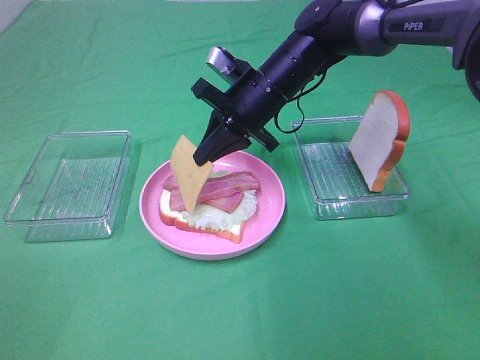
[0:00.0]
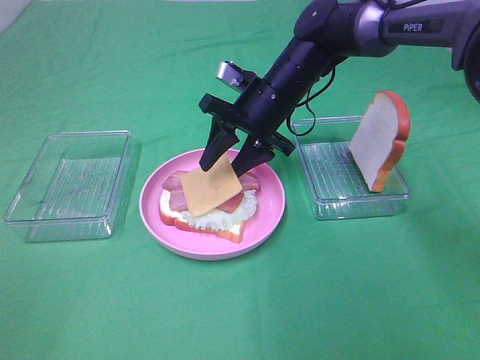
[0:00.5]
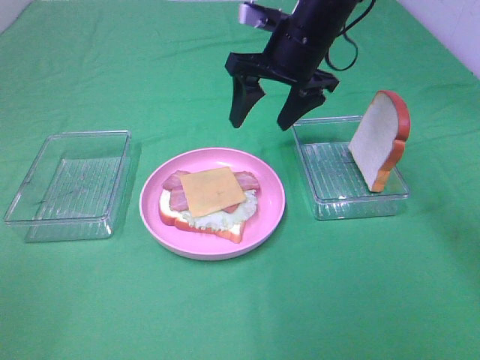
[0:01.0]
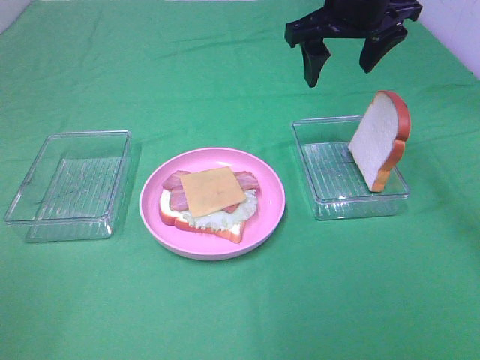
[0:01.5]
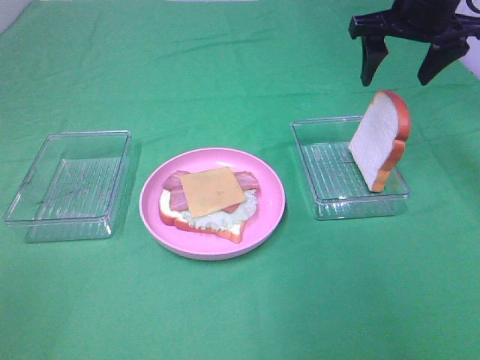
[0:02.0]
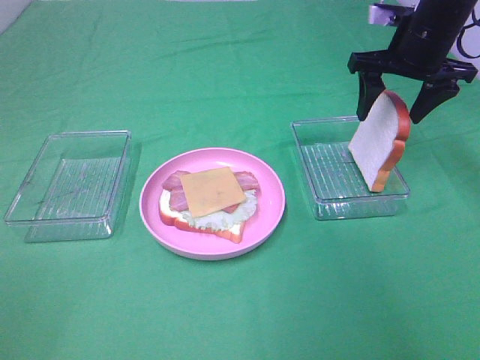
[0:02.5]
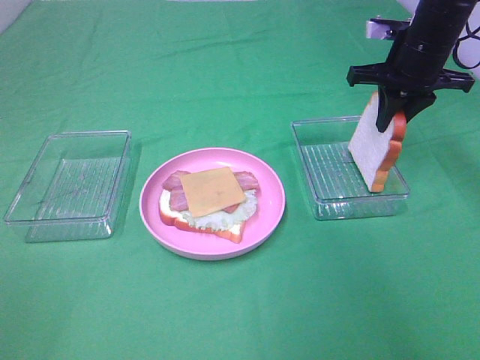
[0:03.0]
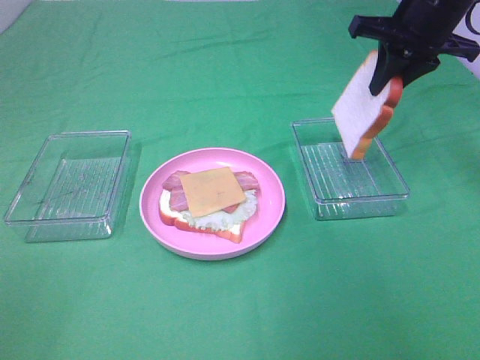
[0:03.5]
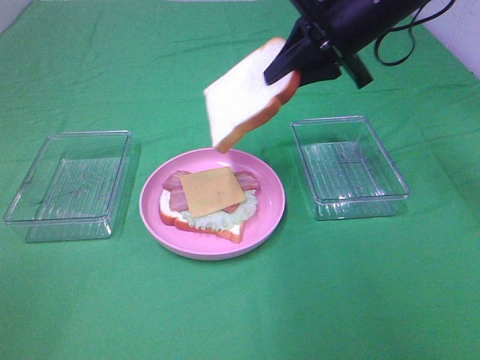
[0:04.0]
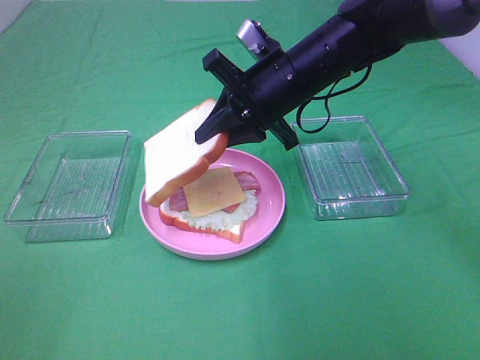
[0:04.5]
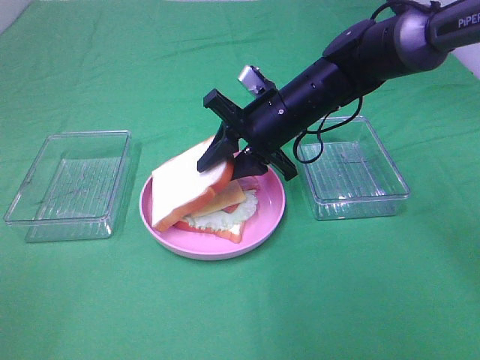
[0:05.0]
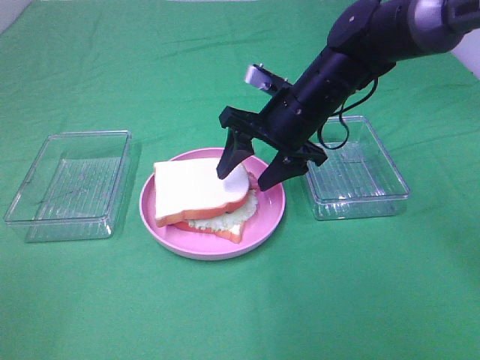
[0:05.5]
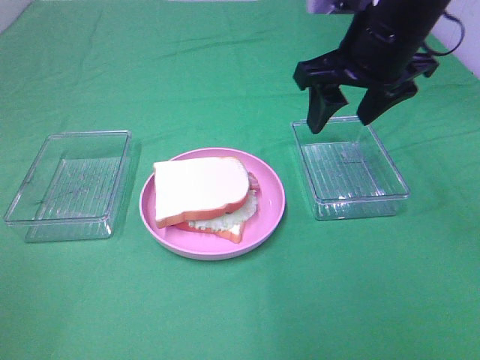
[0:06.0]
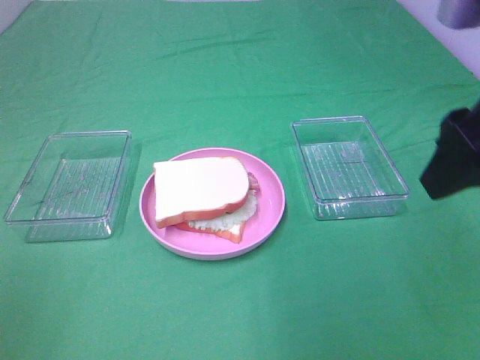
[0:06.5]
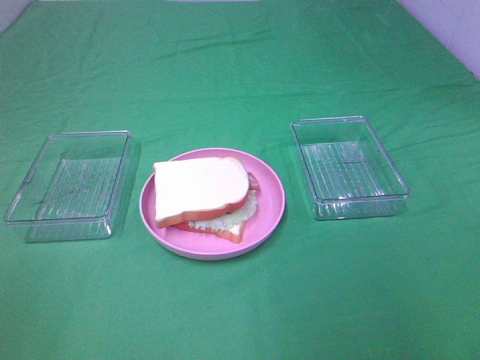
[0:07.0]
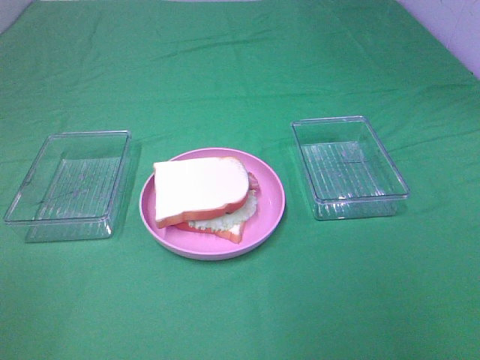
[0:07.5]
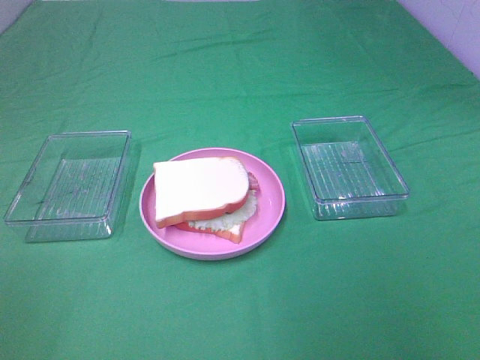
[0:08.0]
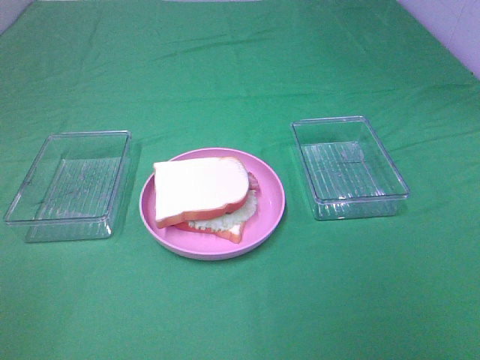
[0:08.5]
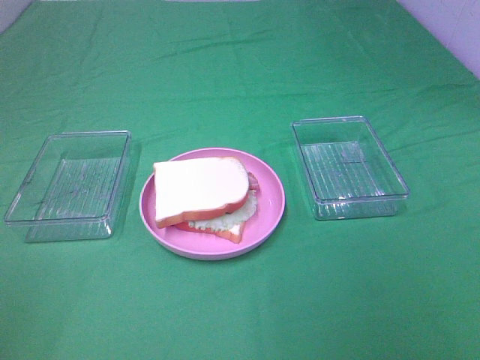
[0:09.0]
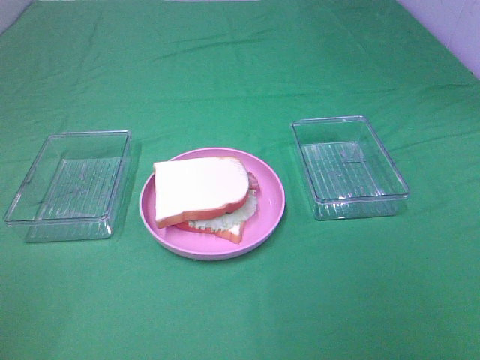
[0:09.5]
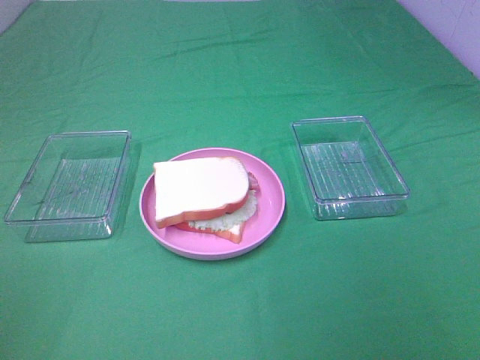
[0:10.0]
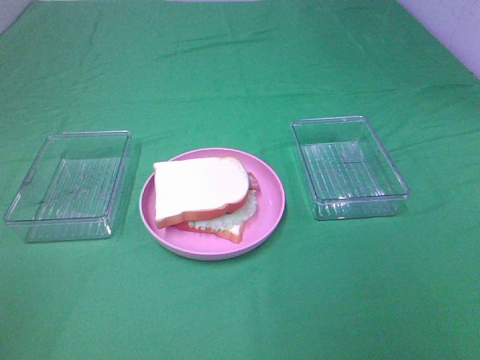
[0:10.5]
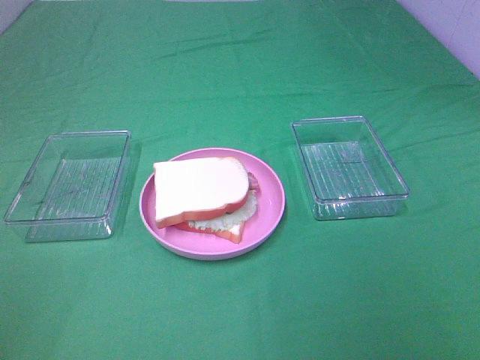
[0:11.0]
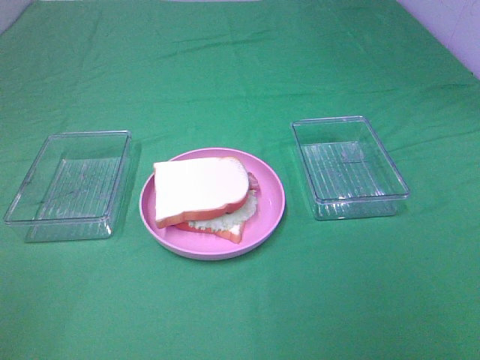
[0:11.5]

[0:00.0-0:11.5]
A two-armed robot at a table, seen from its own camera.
Task of the whole recording: Make sandwiches.
Step, 0:01.0 to 0:03.0: Right hand:grab the bread slice.
Step, 0:03.5 to 0:05.5: Right hand:place the bread slice on the cheese slice.
0:00.0 to 0:02.0: The right gripper travels to the right and upward by roughly 20 cm, and opens its fingers.
0:02.0 to 0:04.0: The right gripper goes approximately 10 cm to the left, and closes.
0:04.0 to 0:06.0: The right gripper goes approximately 5 cm backward, reaches about 10 cm downward, then returns, and opens up.
0:06.0 to 0:07.5: The right gripper moves backward and to the right, roughly 35 cm.
0:09.5 to 0:11.5: The two grippers keep their place.
